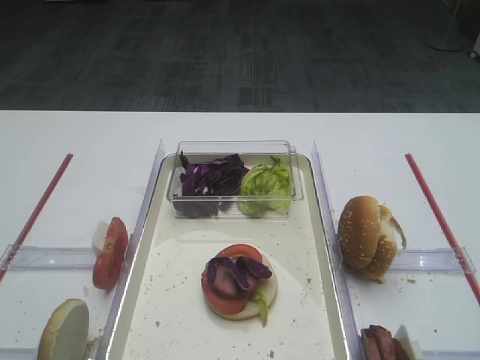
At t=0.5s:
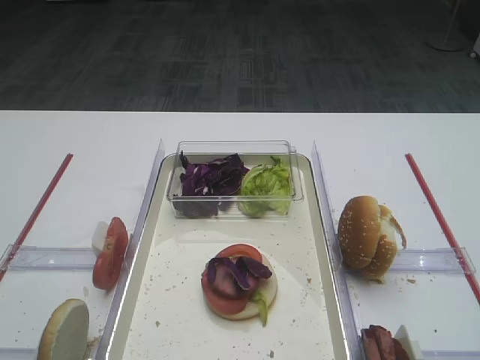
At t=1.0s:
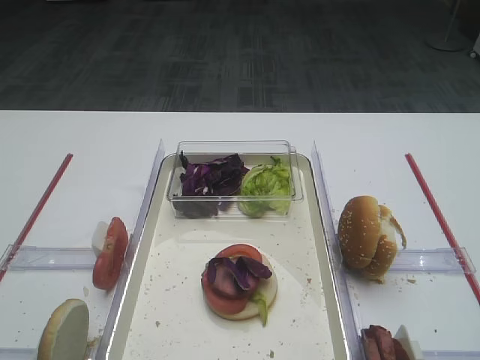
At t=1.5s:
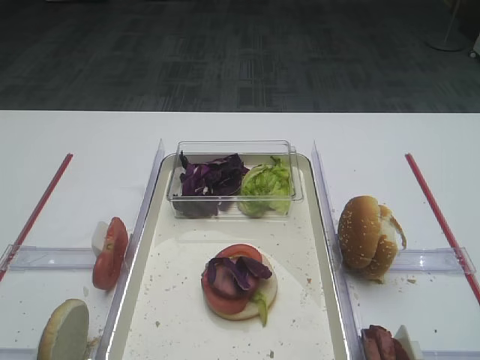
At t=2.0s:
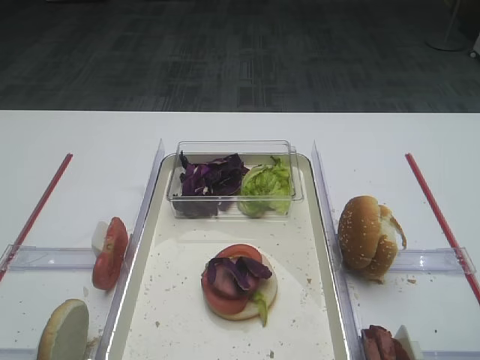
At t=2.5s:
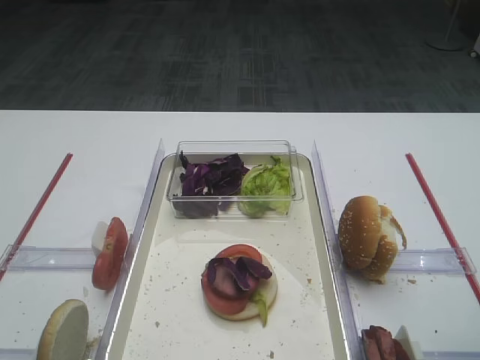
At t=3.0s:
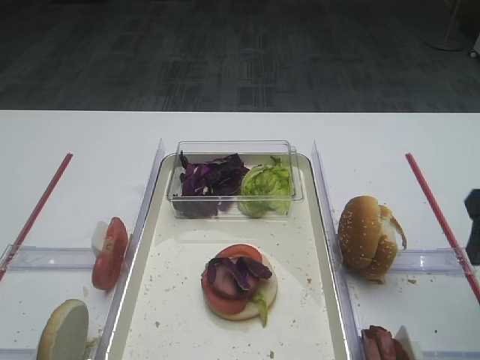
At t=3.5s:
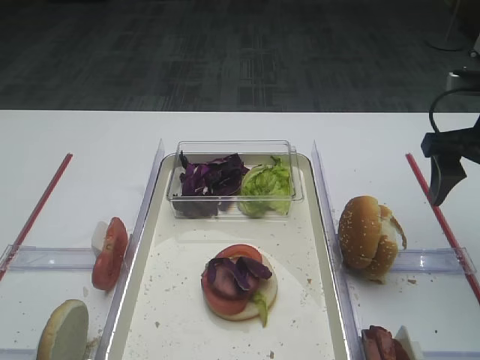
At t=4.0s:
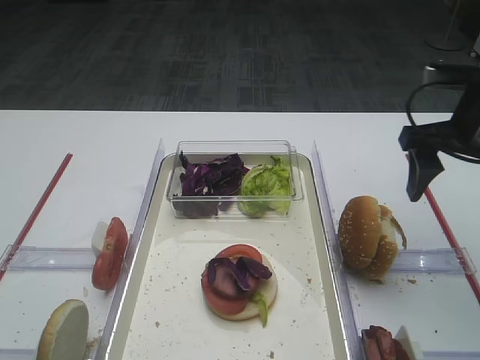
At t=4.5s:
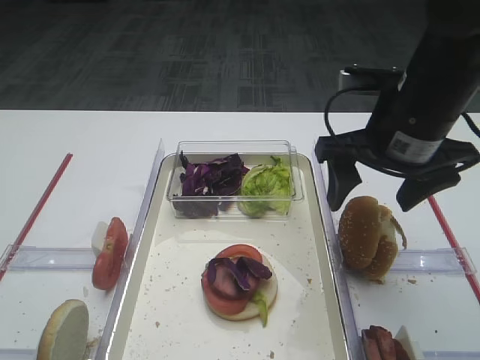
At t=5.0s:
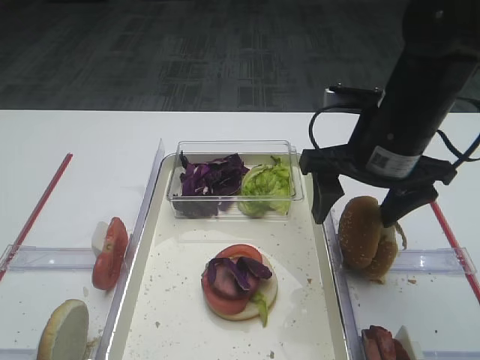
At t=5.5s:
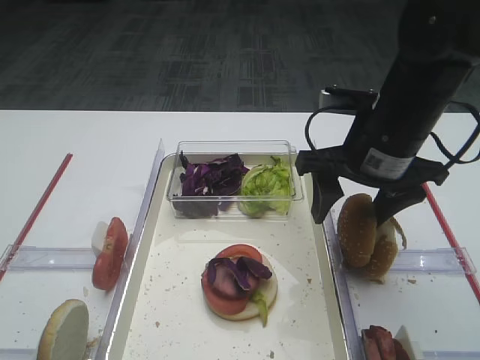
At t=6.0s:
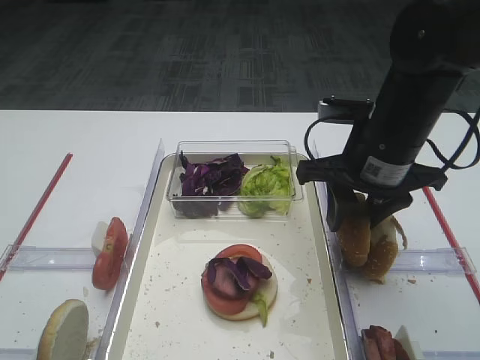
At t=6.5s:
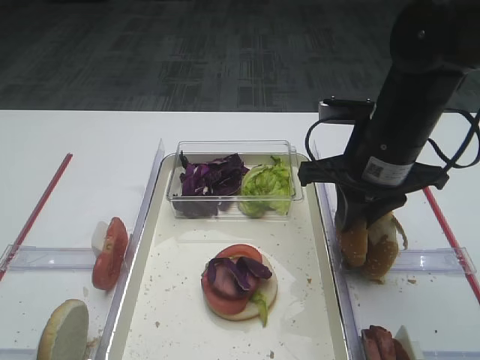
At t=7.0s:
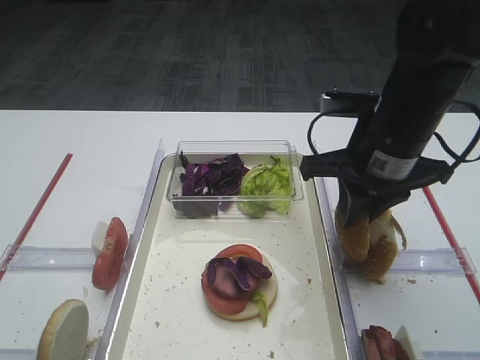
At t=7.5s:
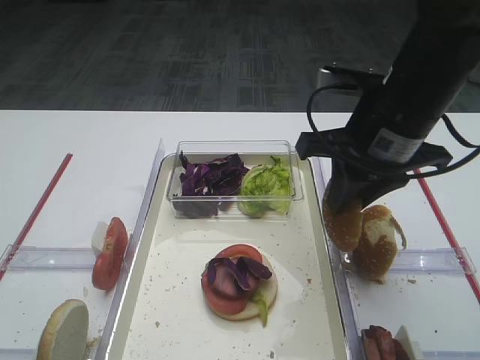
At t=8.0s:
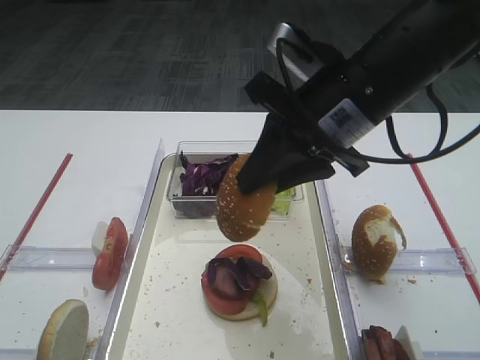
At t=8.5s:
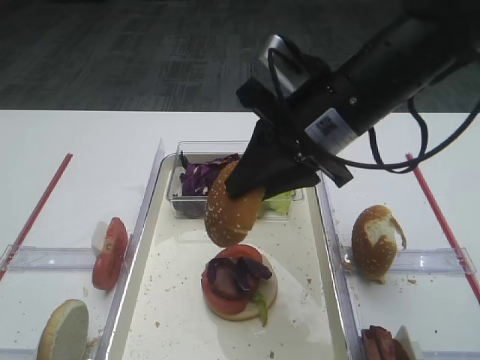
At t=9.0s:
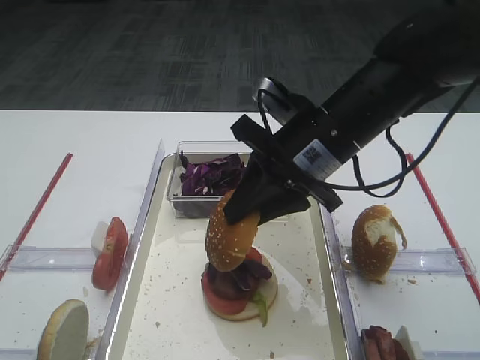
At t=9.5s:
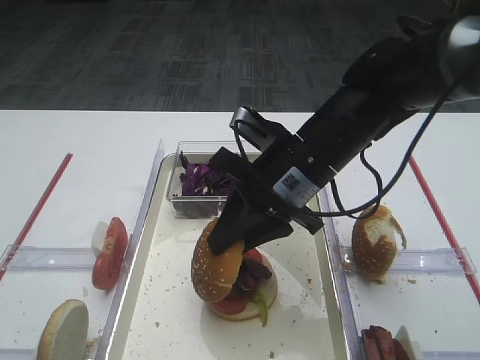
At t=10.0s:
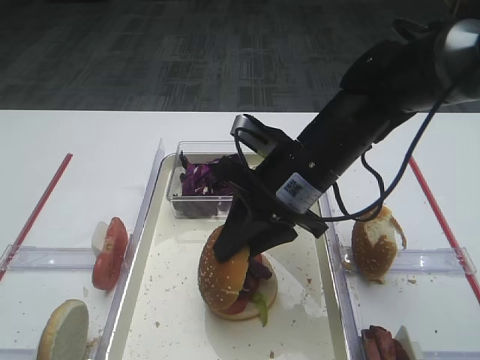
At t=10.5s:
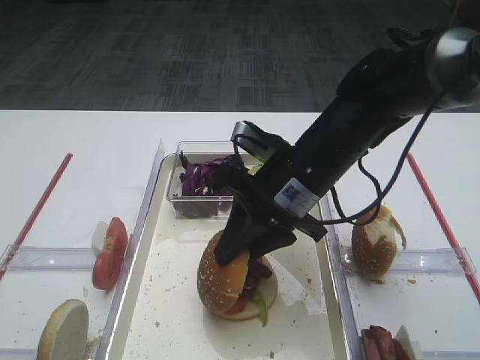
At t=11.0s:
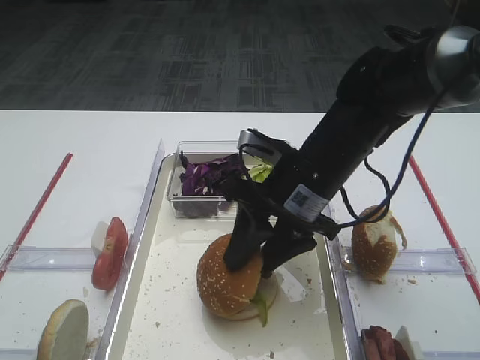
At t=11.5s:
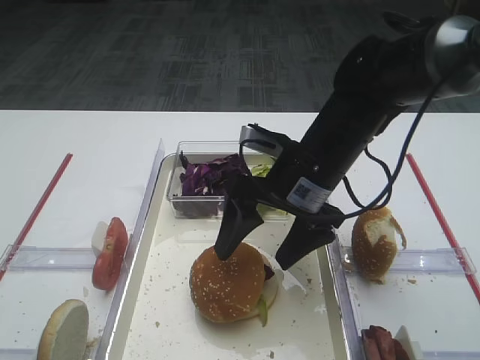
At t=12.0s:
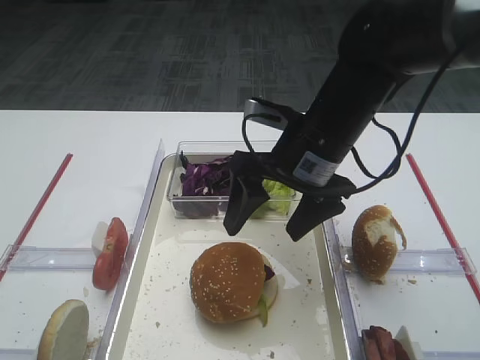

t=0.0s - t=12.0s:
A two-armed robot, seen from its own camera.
Step, t=0.0s - t=7.0s: Pick up the hamburger lid with the right gripper.
t=2.0s - t=4.0s: The right gripper travels forward by roughly 20 cm.
t=4.0s - t=6.0s: The right gripper goes some 10 cm to the left, and closes its fingers.
t=6.0s - t=8.0s: The right gripper is displaced upward by some 5 cm.
t=8.0s - t=10.0s: The right gripper goes approximately 10 cm downward.
t=10.0s - t=12.0s: The right gripper opens.

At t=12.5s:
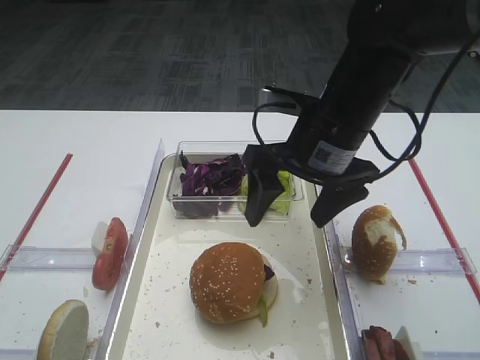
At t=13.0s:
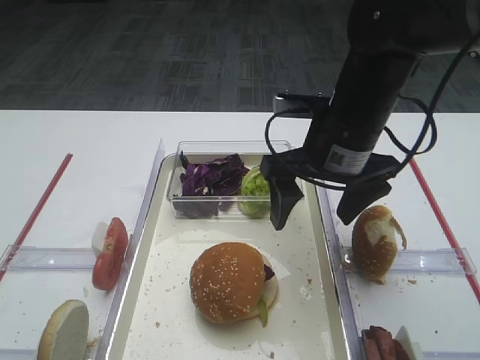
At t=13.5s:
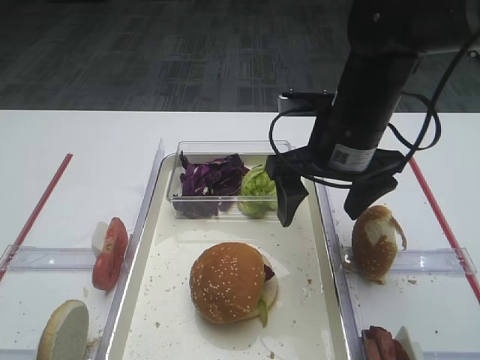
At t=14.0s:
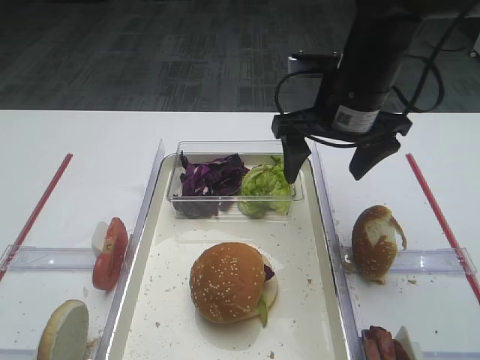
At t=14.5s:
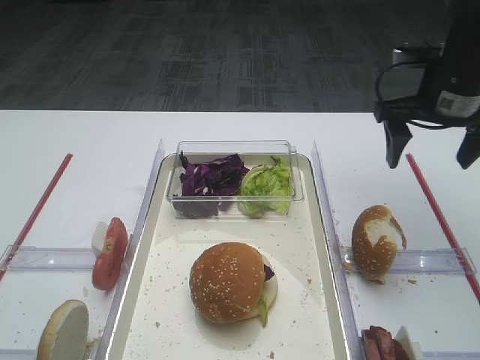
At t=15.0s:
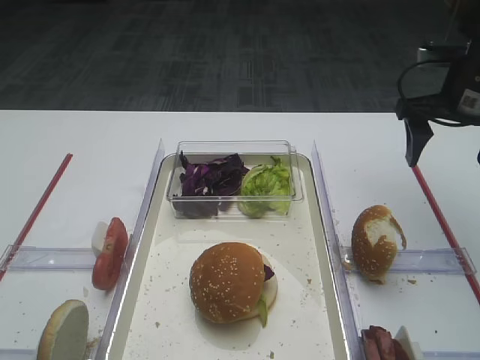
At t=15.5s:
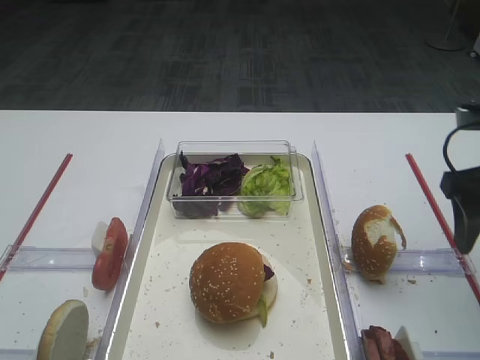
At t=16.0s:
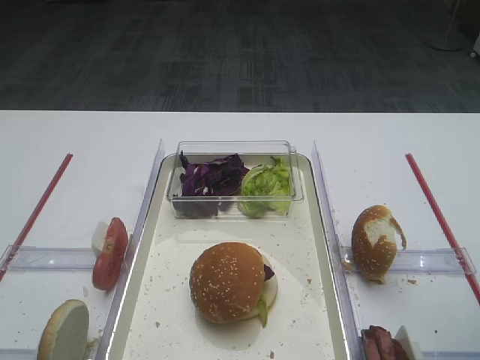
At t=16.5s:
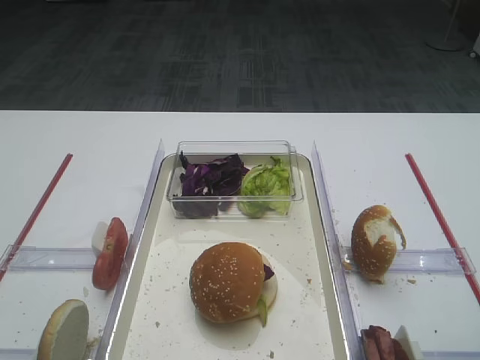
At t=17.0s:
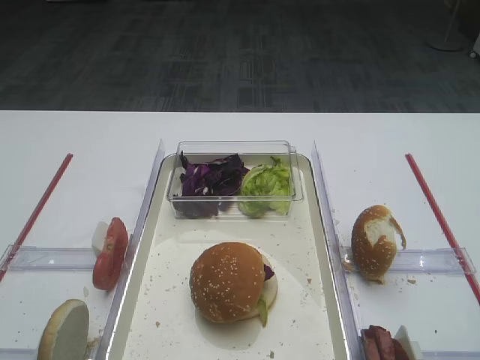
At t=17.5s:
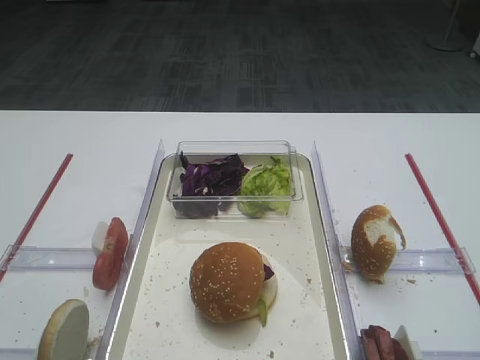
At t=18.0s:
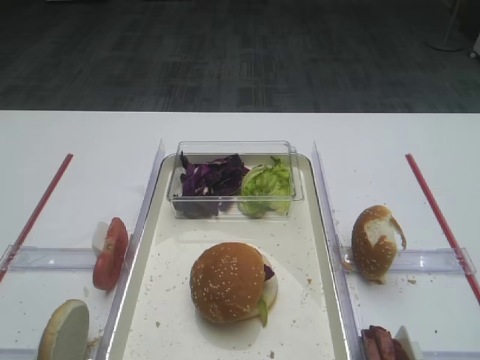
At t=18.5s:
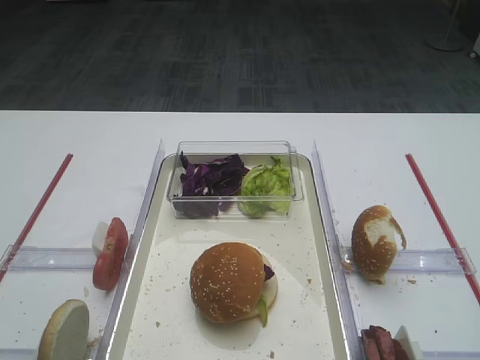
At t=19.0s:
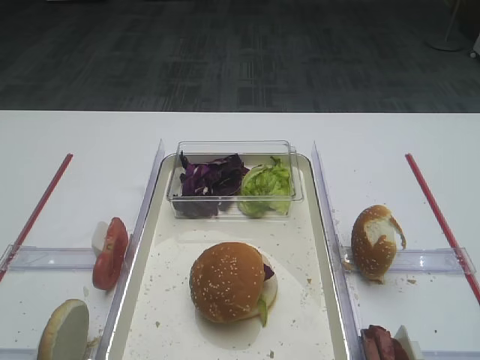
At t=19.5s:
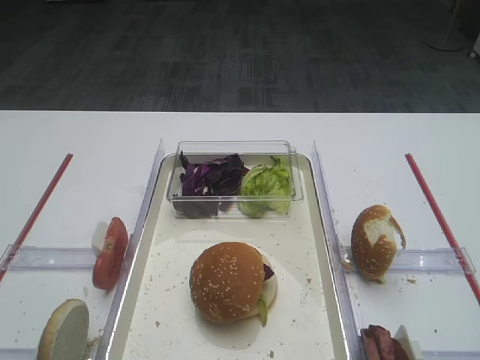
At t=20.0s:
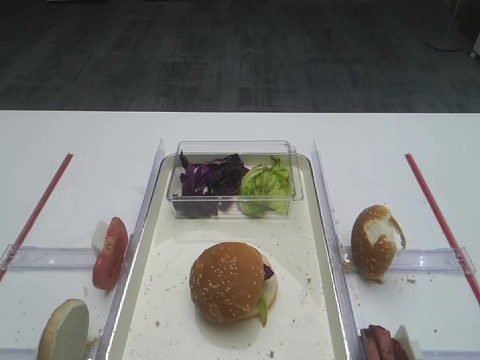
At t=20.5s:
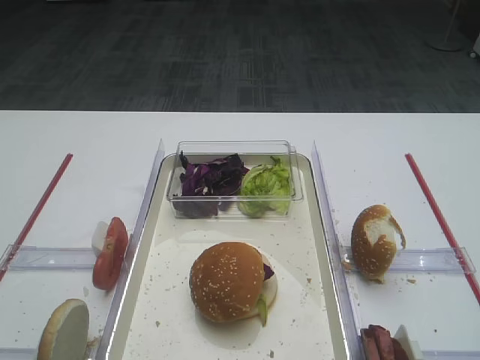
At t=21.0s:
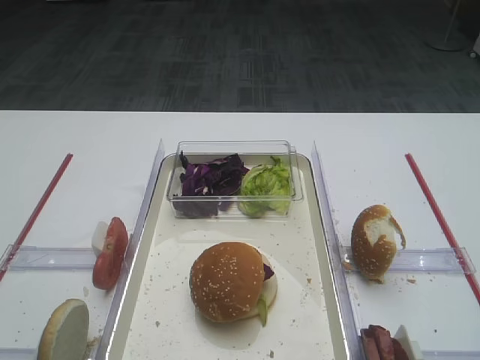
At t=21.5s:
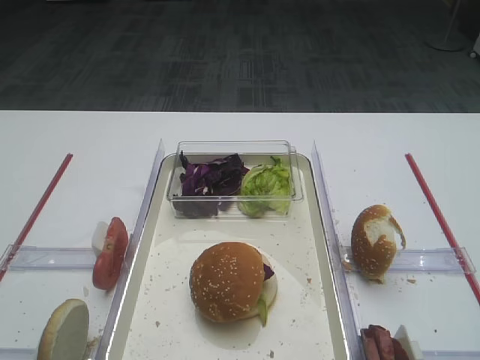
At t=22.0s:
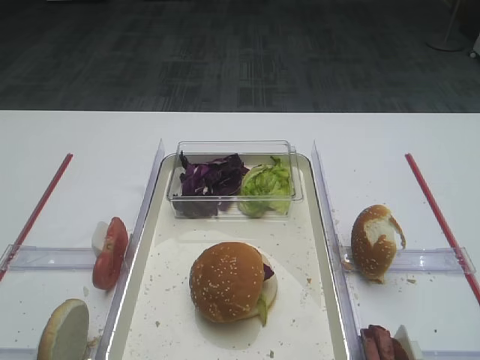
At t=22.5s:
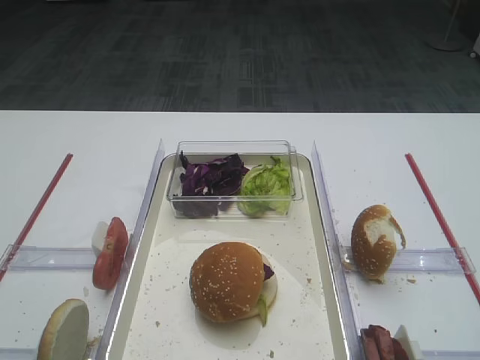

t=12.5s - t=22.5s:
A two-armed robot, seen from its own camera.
t=12.5s - t=14.5s: The right gripper moves to the right and forward, approximately 15 cm.
t=14.5s - t=16.5s: The right gripper moves backward, roughly 25 cm.
t=18.5s - t=22.5s: Both grippers stay about where they are.

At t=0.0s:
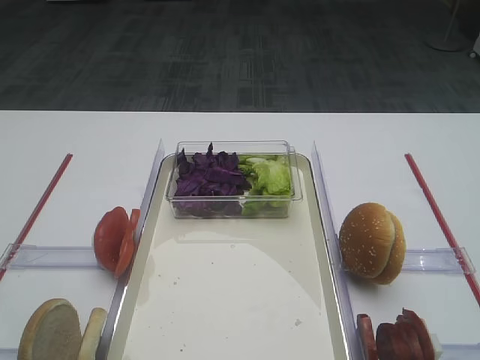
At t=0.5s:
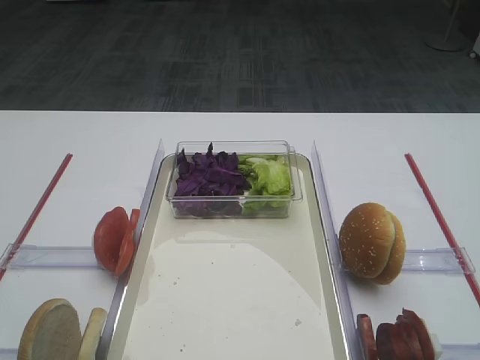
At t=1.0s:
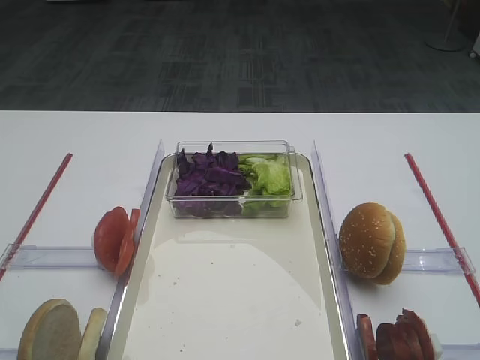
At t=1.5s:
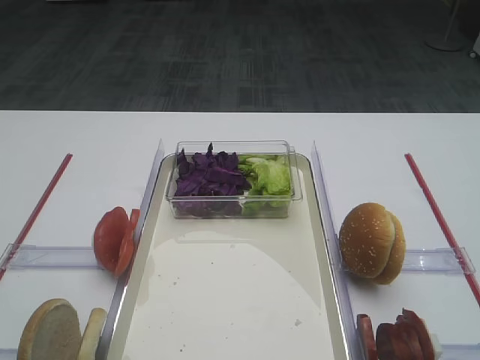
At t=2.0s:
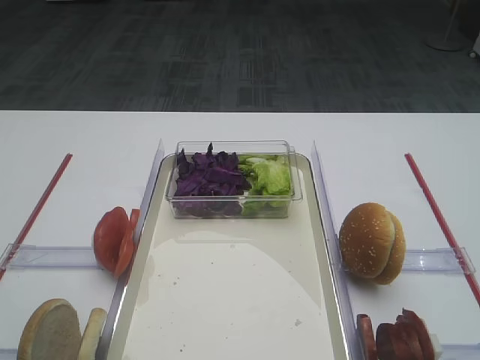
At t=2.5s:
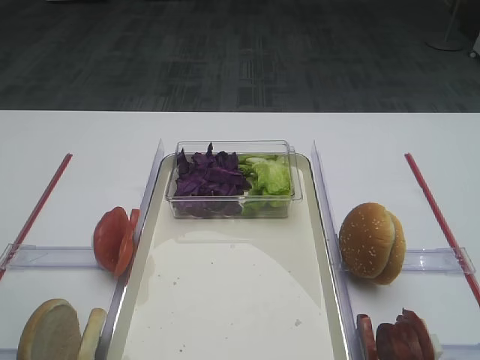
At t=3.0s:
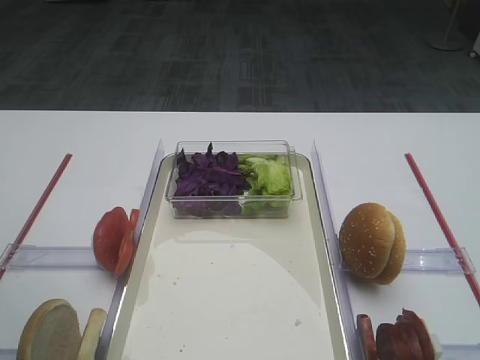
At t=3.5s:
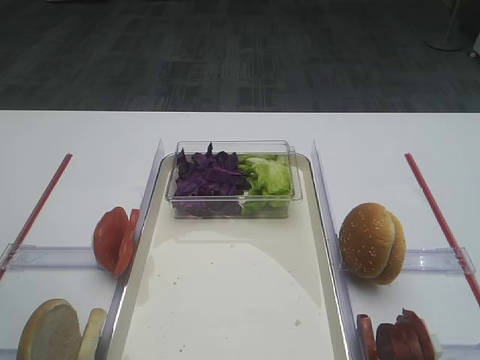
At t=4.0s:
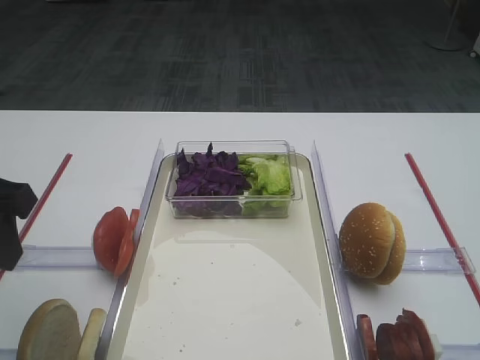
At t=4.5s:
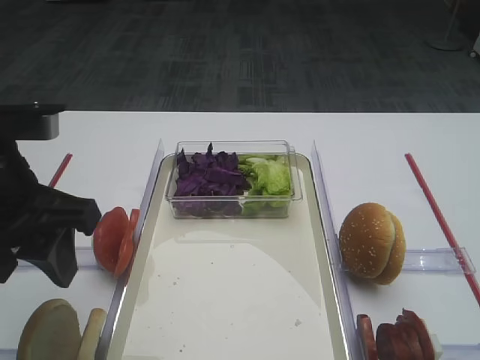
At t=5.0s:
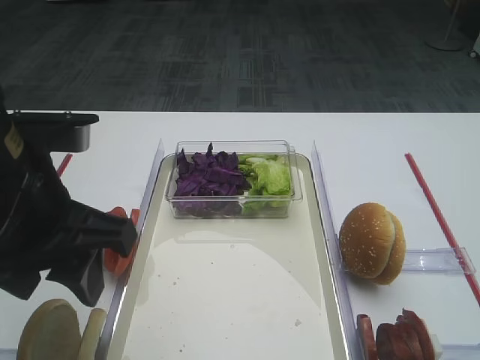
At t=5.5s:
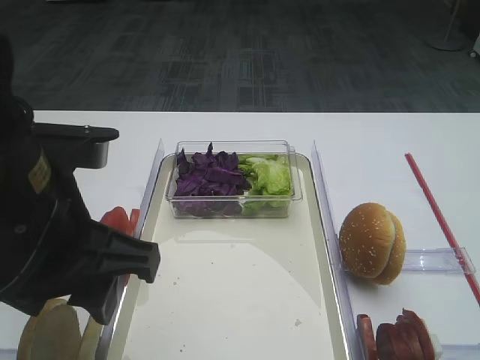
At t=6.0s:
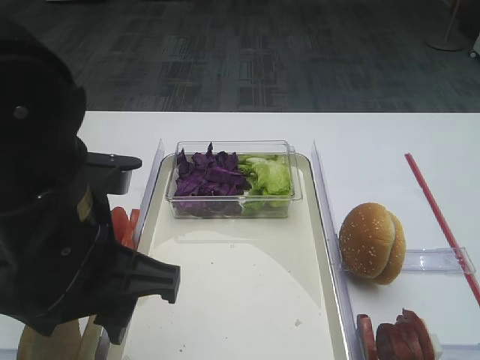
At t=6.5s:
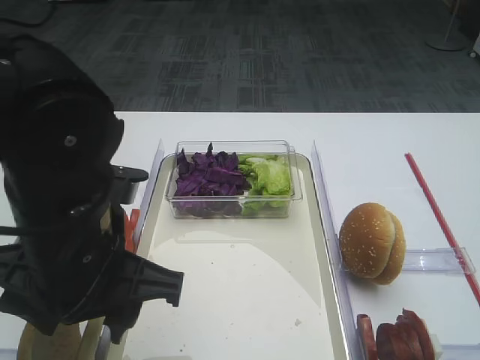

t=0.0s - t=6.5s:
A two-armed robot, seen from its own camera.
t=2.0s - t=4.5s: The left gripper travels forward and to the right by some 15 cm.
t=4.5s - t=6.5s: The left gripper is displaced to the right by some 10 cm.
